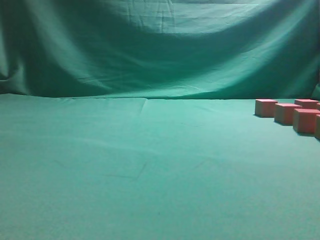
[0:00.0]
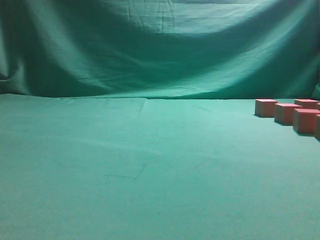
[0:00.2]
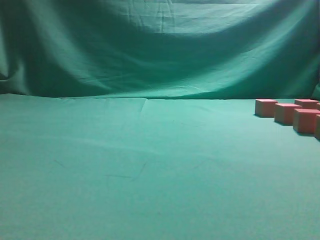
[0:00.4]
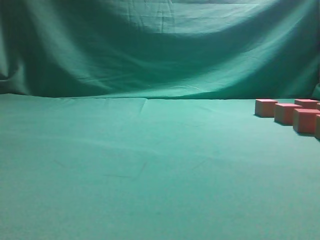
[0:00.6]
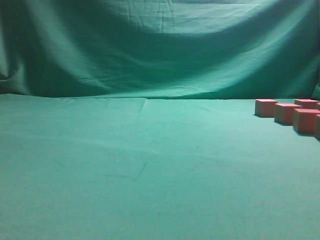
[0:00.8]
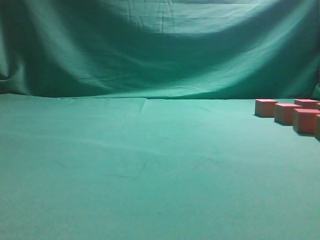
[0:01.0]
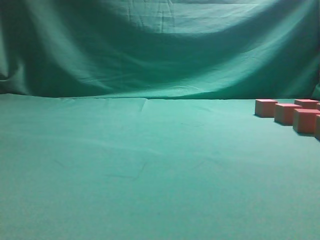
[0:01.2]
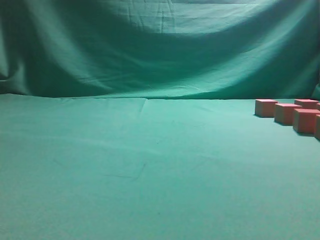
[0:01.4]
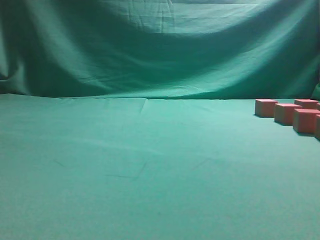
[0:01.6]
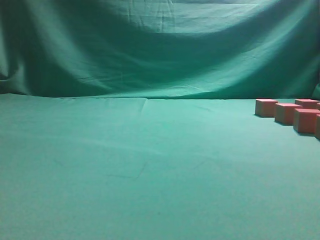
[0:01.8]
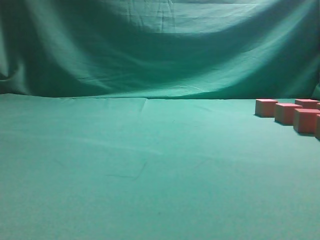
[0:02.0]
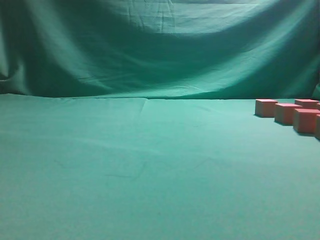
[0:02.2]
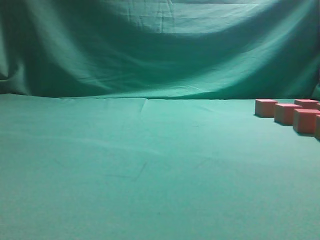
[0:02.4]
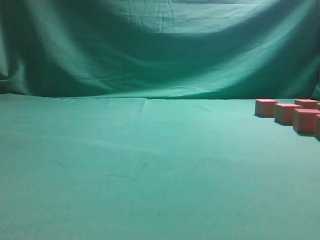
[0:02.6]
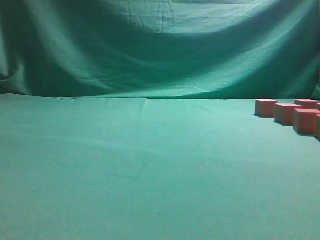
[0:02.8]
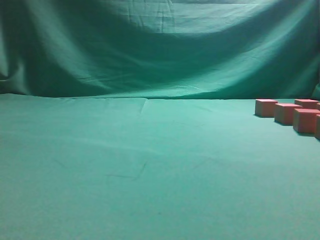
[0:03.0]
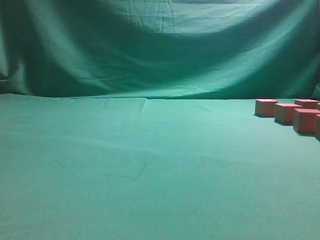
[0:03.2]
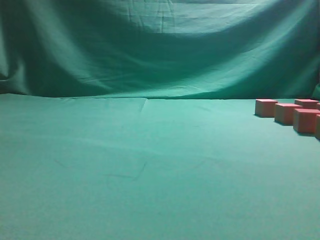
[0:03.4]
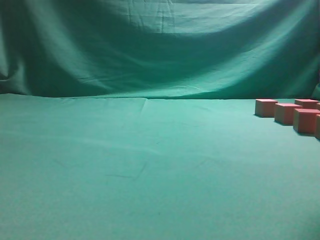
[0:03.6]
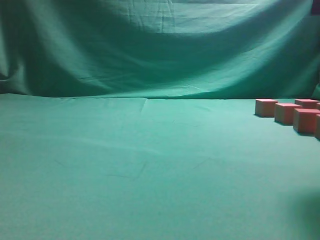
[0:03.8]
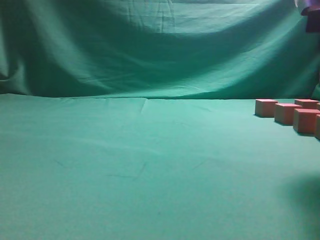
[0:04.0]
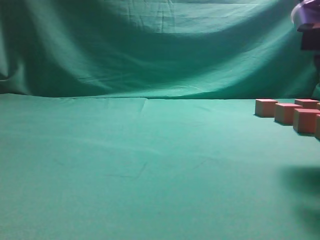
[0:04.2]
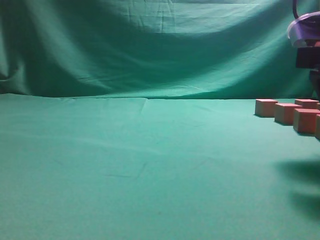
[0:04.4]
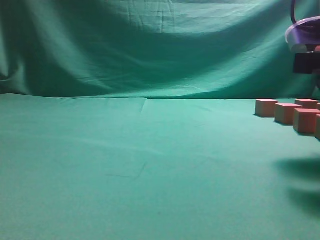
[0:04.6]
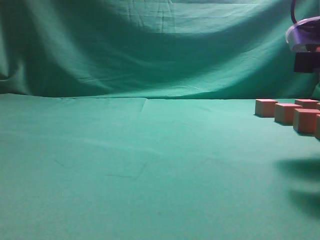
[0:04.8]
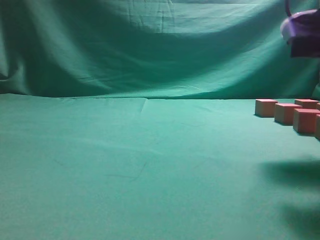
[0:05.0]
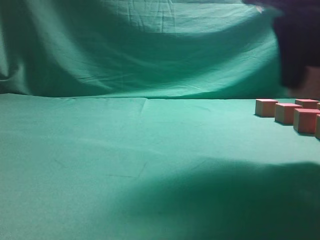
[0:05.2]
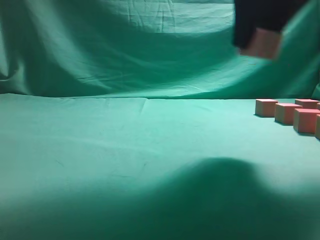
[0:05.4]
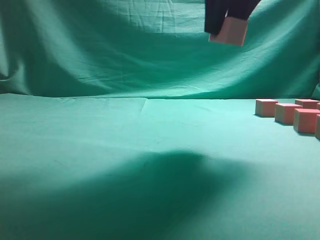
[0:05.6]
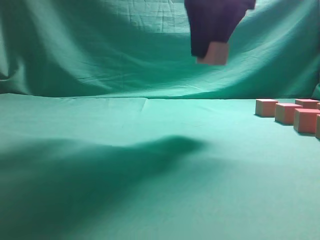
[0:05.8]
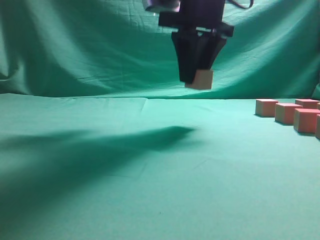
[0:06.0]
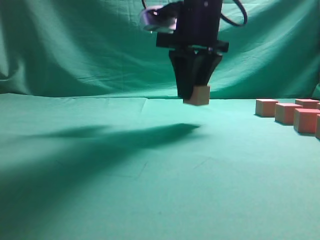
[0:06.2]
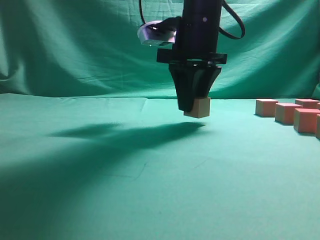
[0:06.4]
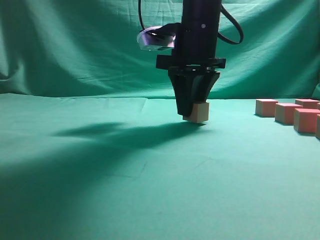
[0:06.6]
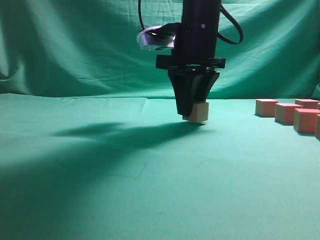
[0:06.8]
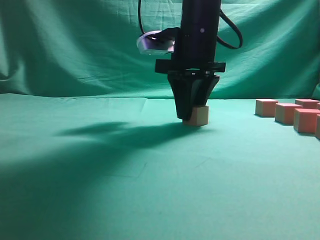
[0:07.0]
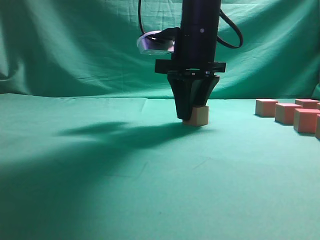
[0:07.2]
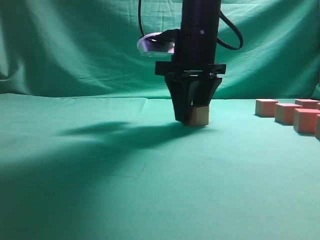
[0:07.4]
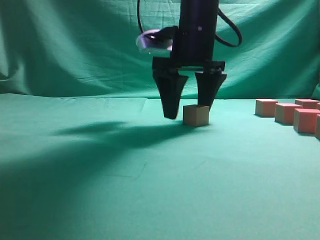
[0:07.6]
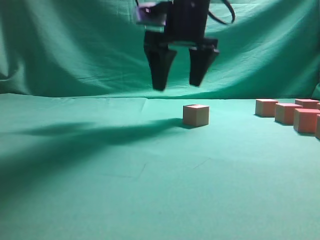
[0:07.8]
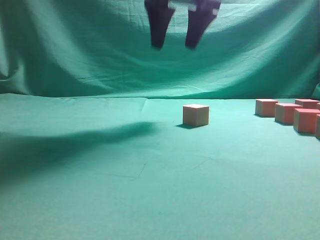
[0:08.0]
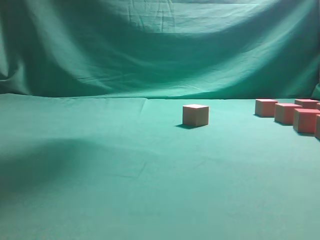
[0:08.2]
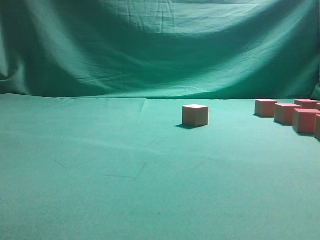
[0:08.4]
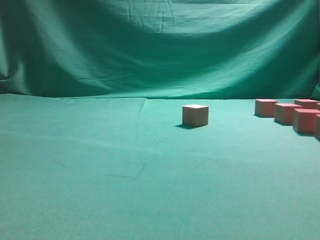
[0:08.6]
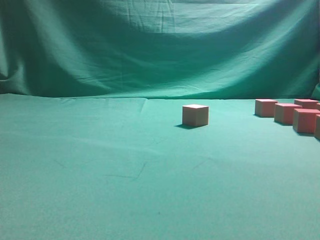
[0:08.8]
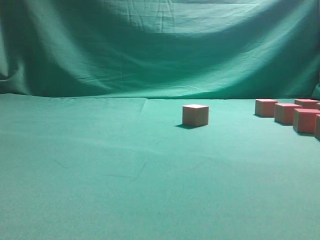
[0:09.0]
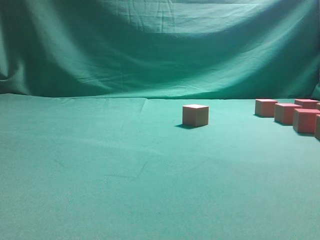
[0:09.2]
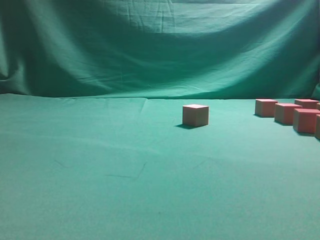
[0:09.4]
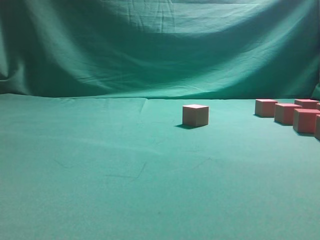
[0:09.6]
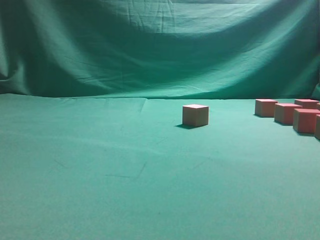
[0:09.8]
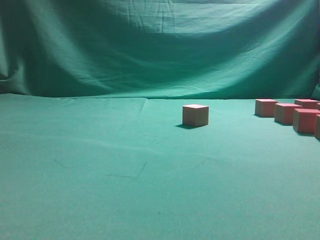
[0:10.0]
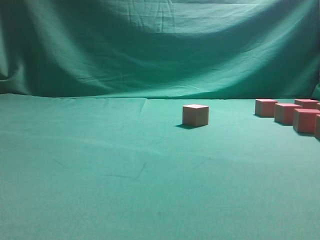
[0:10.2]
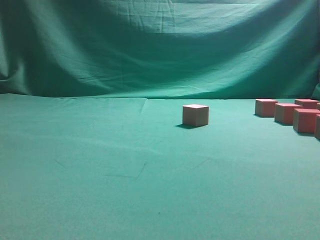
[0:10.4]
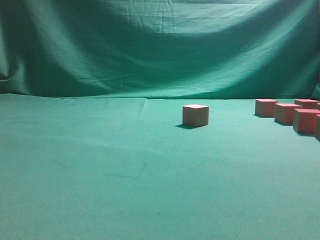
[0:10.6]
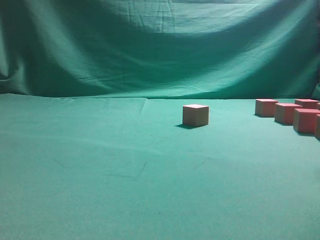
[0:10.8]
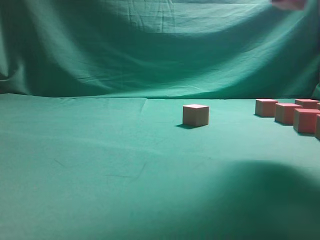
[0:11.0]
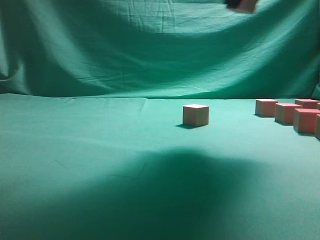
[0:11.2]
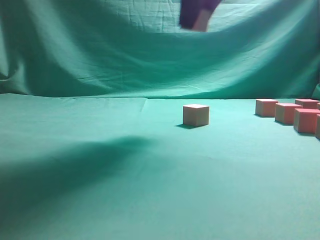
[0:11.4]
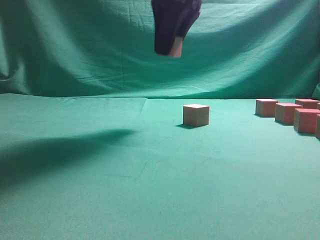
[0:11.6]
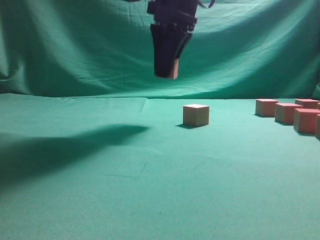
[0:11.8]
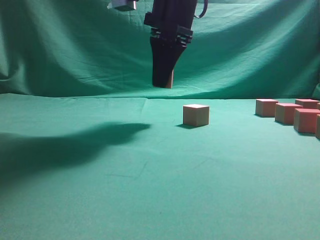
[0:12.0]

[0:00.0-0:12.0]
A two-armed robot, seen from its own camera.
Task of the whole recording: pick up the multiple cubes in two columns one by one and place them in another position on the table.
Step, 0:00.0 to 0:05.0: Pick up the block on the table.
Step, 0:05.2 to 0:07.8: Place the block at the correct position to assemble the letter S.
Step, 0:08.0 to 0:10.6: Pick up the block on the table.
0:03.0 to 0:04.4: The right gripper moves downward, forward and to the left, roughly 20 cm, and opens up.
0:04.4 to 0:06.0: The right gripper travels forward, to the left and upward by some 20 cm, and closes its fingers.
0:06.0 to 0:07.6: The right gripper shifts roughly 5 cm downward, and opens up.
0:07.6 to 0:09.0: The right gripper goes approximately 30 cm to the right, backward and upward.
0:10.4 to 0:12.0: The right gripper is displaced to the left and forward by about 30 cm.

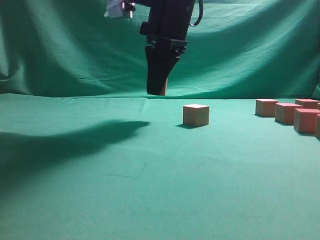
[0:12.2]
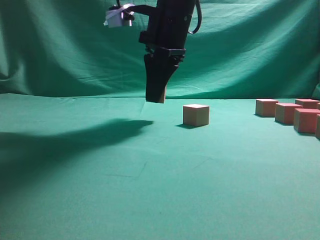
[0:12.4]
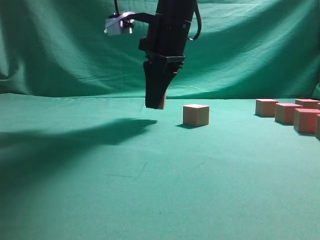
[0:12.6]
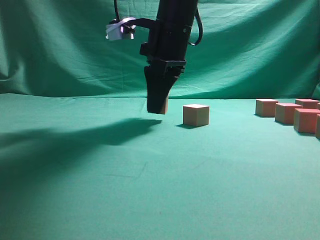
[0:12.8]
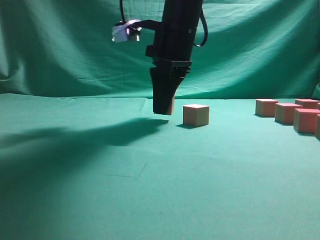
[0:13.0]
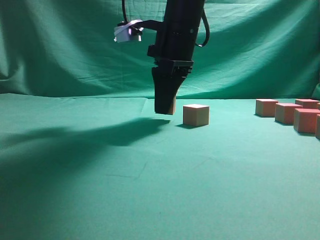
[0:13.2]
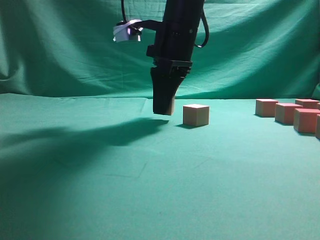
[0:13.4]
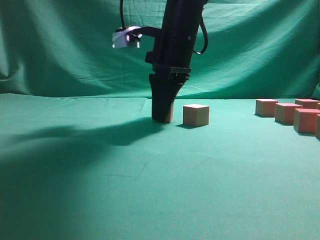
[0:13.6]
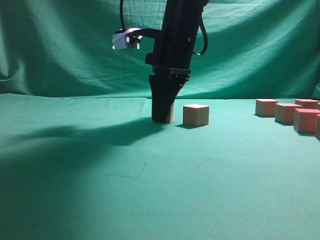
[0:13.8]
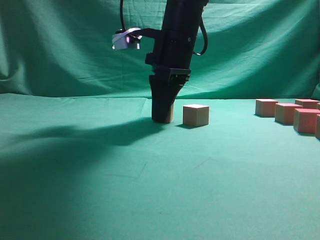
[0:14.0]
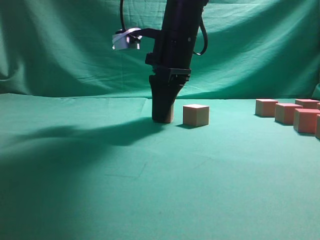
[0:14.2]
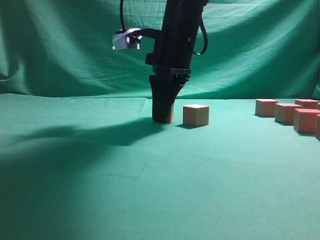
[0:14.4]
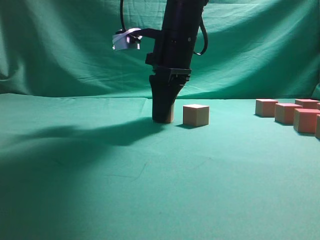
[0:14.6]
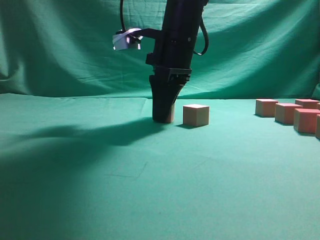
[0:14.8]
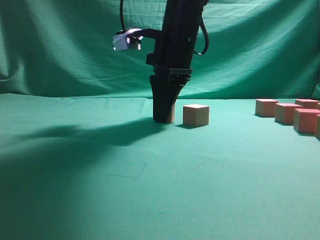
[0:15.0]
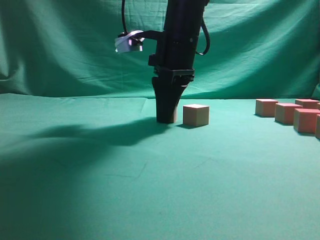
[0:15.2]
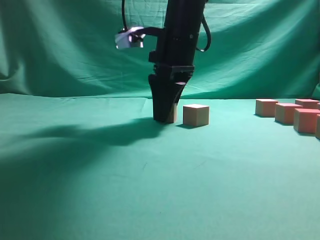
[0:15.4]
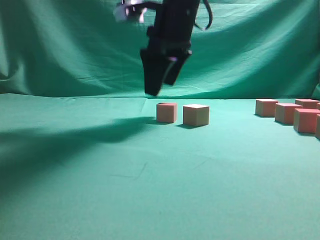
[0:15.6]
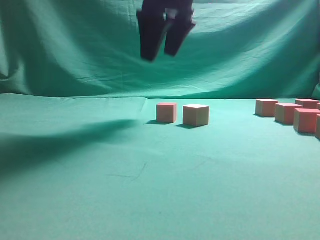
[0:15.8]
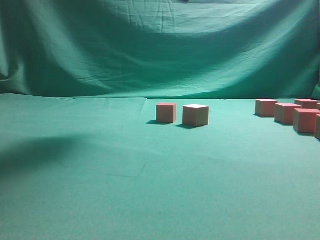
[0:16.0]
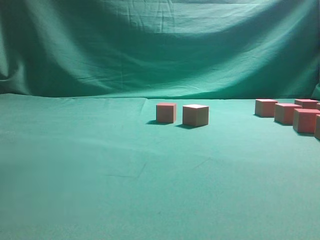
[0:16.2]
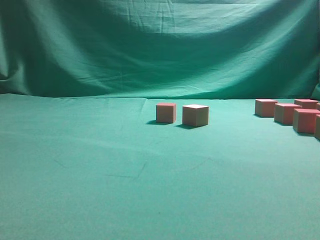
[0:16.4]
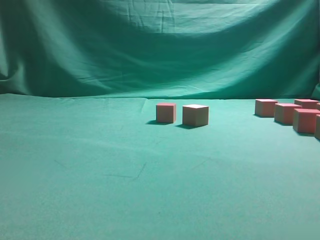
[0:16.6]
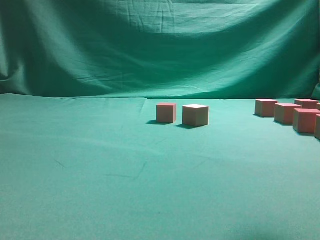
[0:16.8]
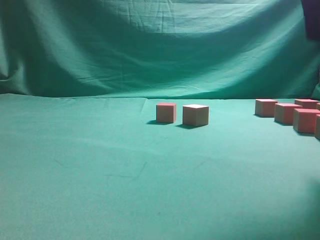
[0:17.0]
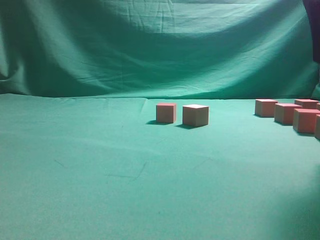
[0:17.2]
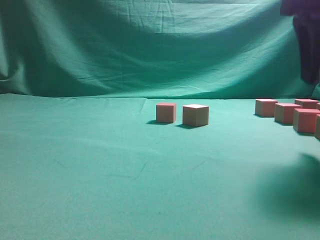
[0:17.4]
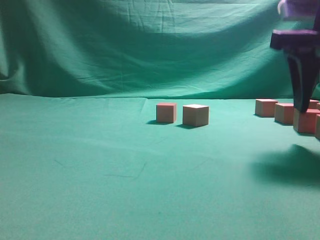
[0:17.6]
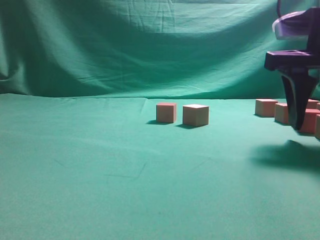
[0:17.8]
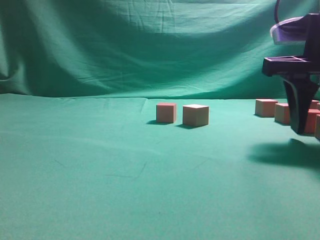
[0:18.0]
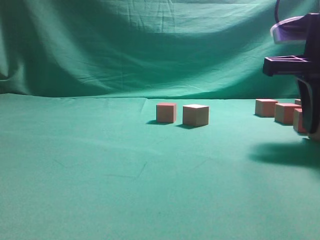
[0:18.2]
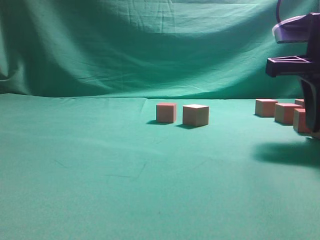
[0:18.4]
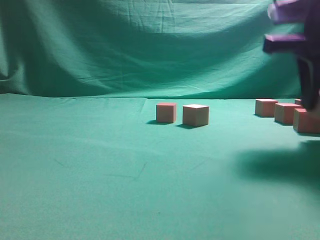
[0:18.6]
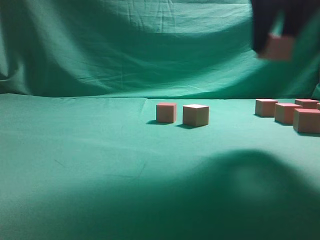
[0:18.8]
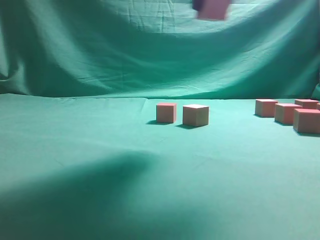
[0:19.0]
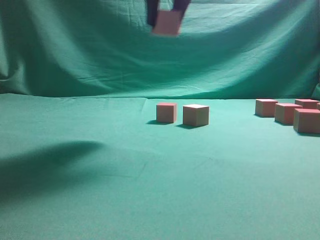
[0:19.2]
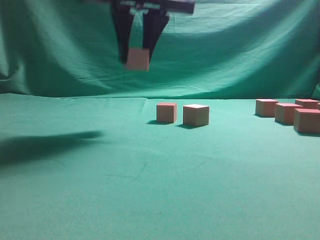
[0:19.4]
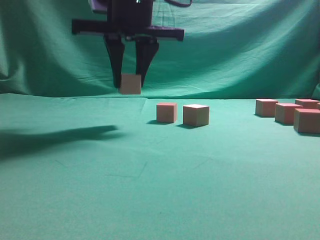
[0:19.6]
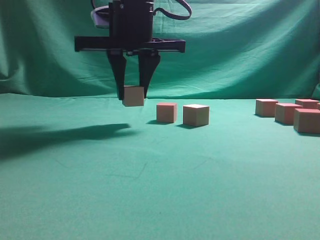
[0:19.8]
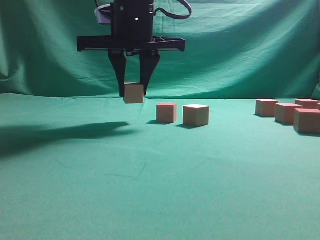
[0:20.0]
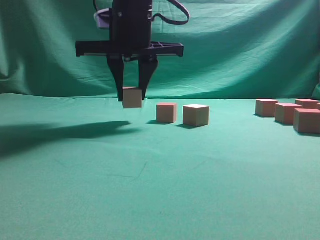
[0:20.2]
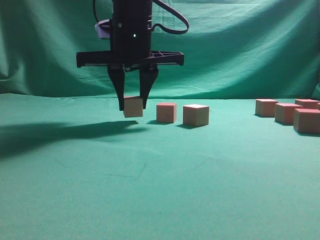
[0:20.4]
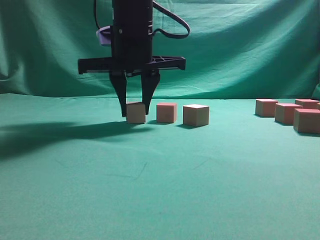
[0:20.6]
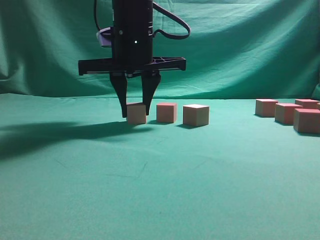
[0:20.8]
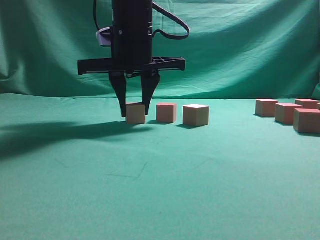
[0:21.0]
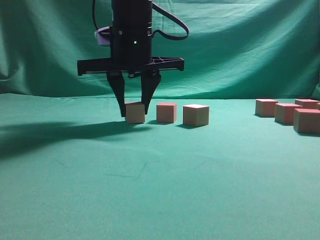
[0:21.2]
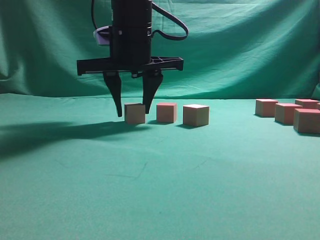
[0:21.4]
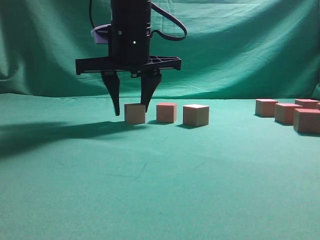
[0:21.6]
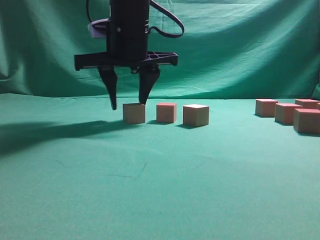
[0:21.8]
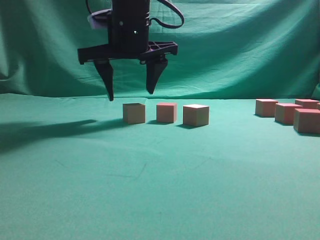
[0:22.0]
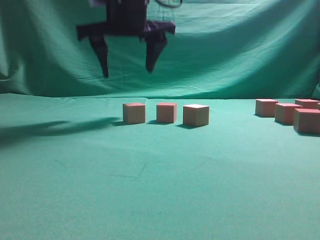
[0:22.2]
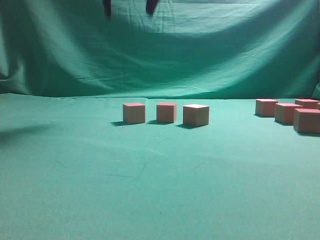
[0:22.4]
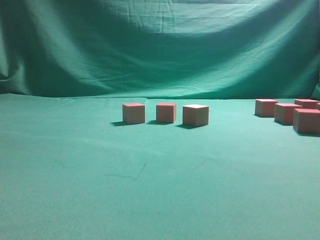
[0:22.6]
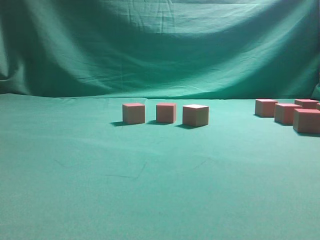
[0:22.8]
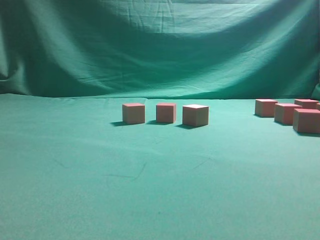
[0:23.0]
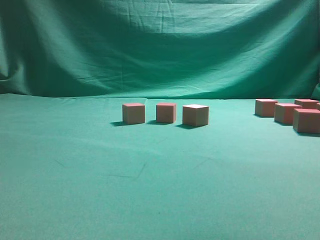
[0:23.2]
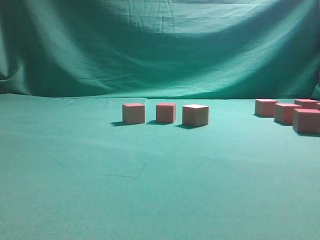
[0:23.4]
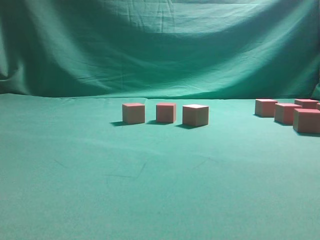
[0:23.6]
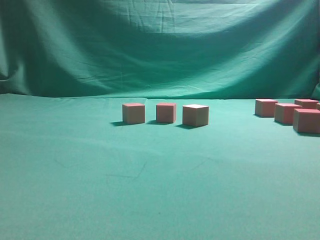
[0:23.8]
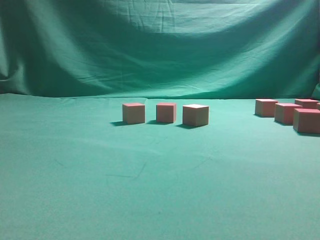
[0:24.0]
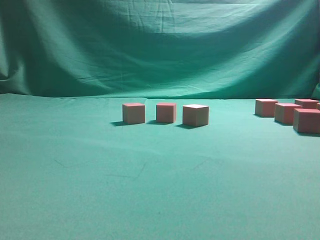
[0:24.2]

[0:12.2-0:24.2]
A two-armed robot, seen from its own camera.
Task of the whole recording: pick up the multiple cubes in two columns one by one and place them in another position on the table.
Step, 0:12.2 to 0:15.6: Place the block at the correct position to assemble the letter S.
Step, 0:16.0 to 0:18.4: Pick up the block on the table.
Step, 0:18.6 to 0:22.2: Place the block at the correct position to assemble the letter S.
0:12.2 to 0:13.8: There are only small adjustments of the grippers.
0:13.8 to 0:15.2: Both grippers stay about where they are.
0:15.2 to 0:16.6: The right gripper moves upward, backward and to the right, roughly 30 cm, and opens its fingers.
0:16.6 to 0:18.2: The right gripper is displaced downward by some 25 cm, and closes.
0:18.2 to 0:19.8: The right gripper heads to the left, covering roughly 25 cm.
0:19.8 to 0:21.2: There are only small adjustments of the grippers.
0:21.2 to 0:22.6: The right gripper shifts approximately 25 cm upward, and opens its fingers.
